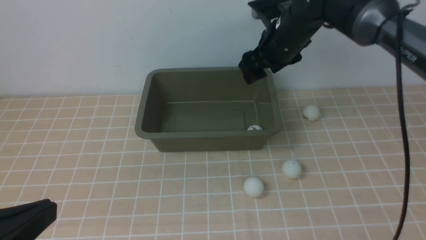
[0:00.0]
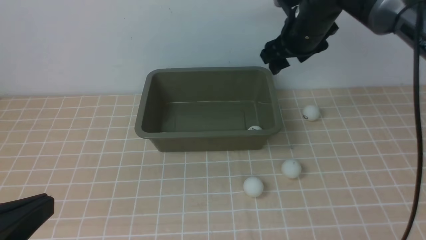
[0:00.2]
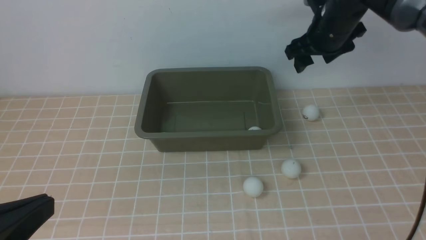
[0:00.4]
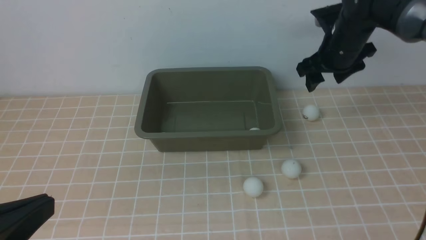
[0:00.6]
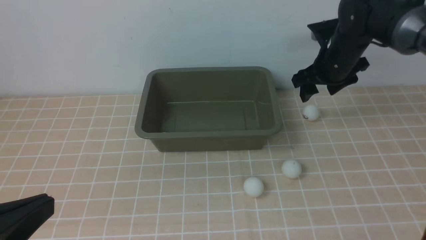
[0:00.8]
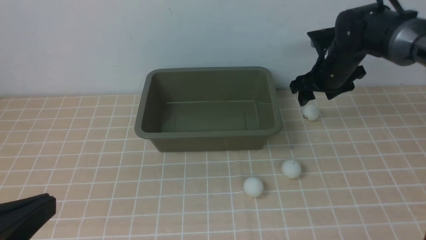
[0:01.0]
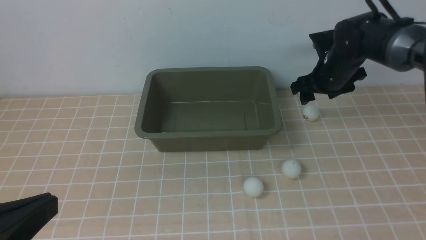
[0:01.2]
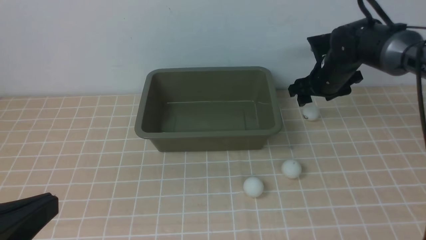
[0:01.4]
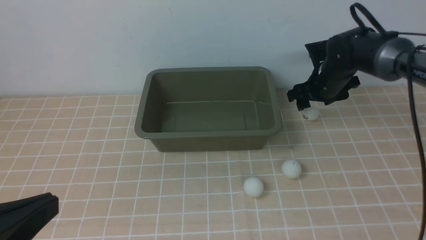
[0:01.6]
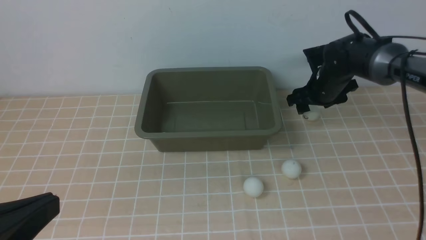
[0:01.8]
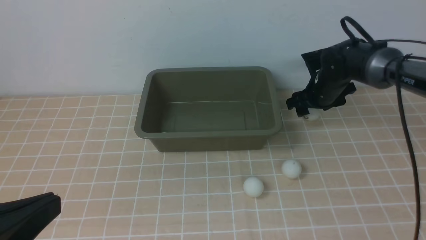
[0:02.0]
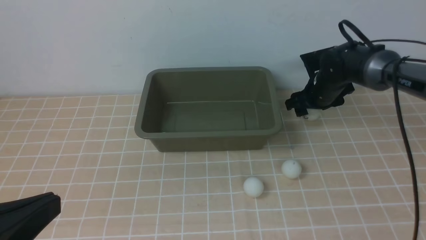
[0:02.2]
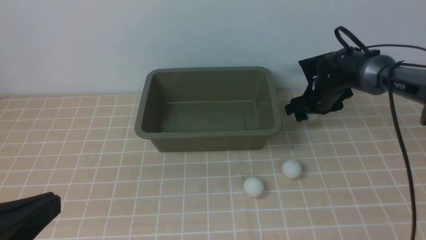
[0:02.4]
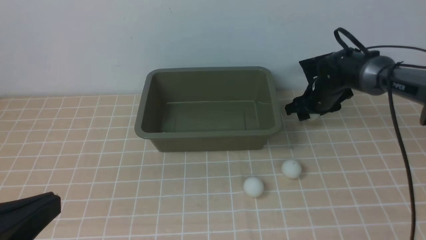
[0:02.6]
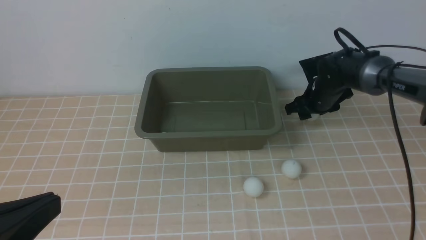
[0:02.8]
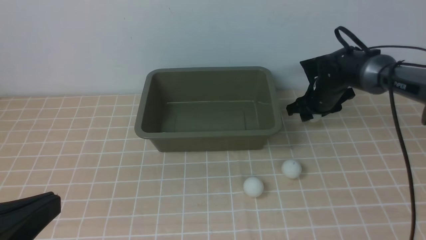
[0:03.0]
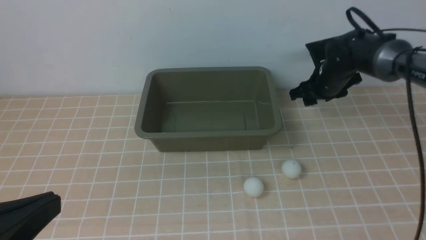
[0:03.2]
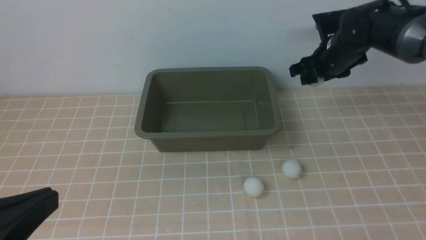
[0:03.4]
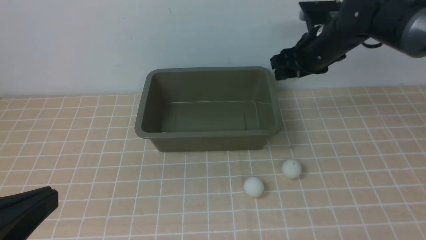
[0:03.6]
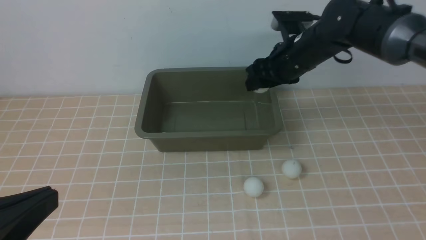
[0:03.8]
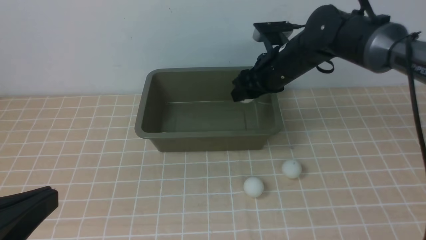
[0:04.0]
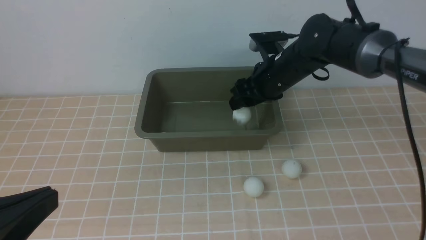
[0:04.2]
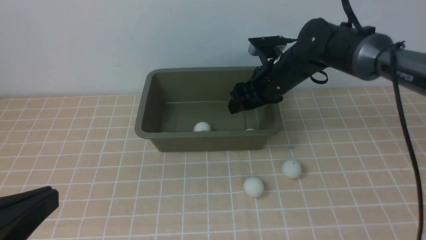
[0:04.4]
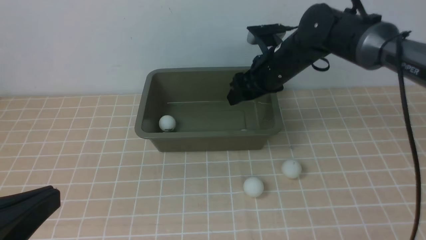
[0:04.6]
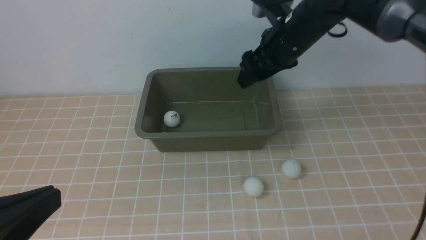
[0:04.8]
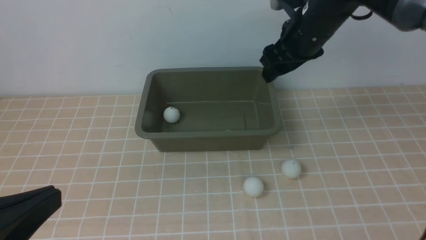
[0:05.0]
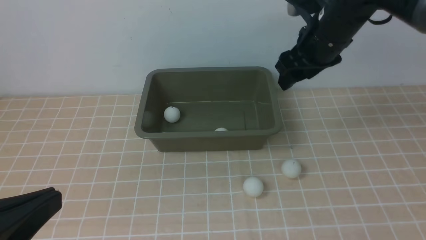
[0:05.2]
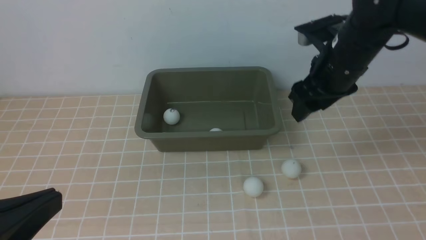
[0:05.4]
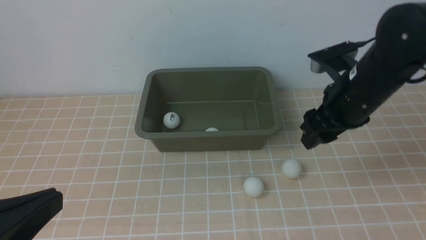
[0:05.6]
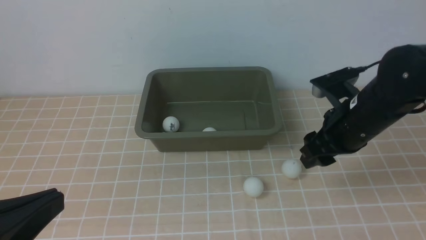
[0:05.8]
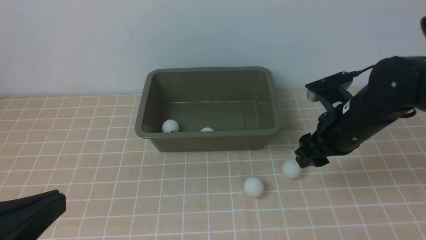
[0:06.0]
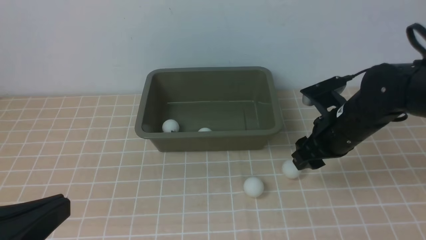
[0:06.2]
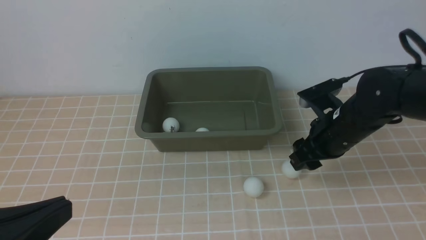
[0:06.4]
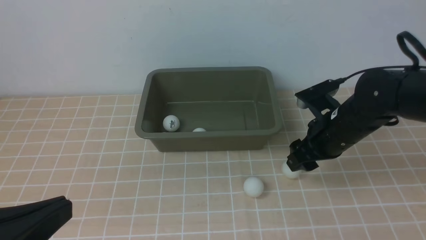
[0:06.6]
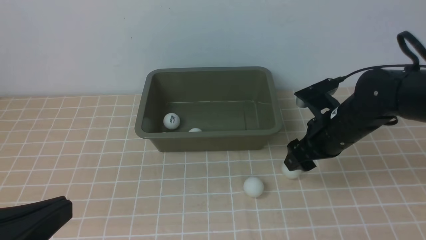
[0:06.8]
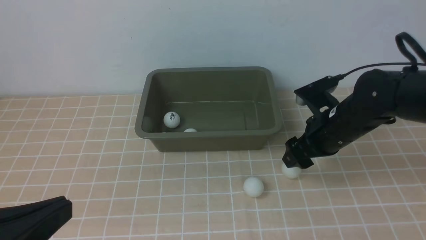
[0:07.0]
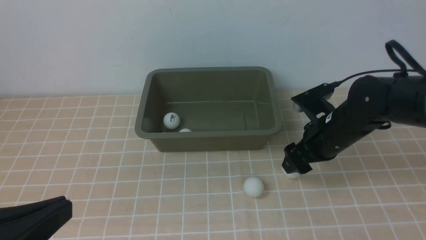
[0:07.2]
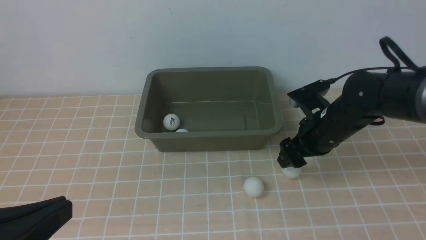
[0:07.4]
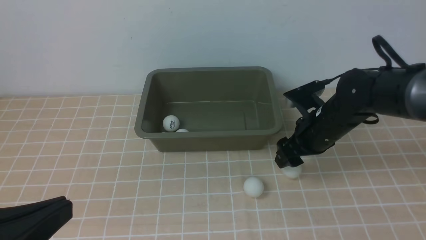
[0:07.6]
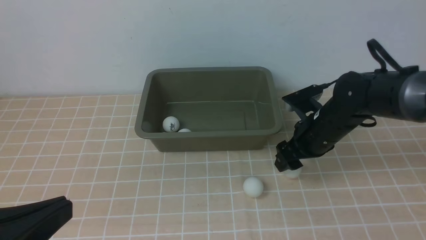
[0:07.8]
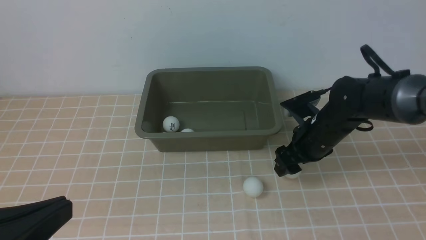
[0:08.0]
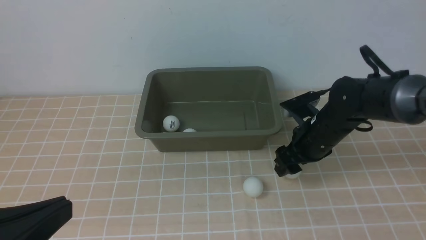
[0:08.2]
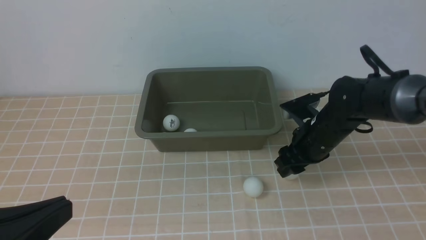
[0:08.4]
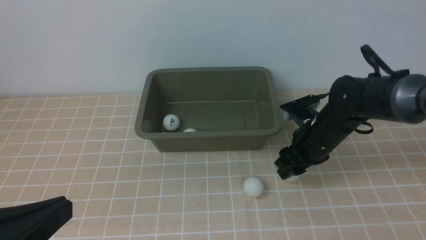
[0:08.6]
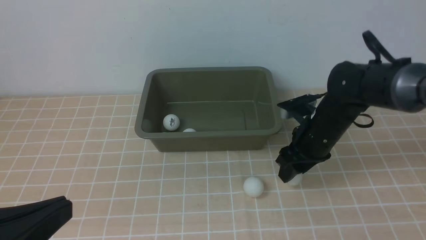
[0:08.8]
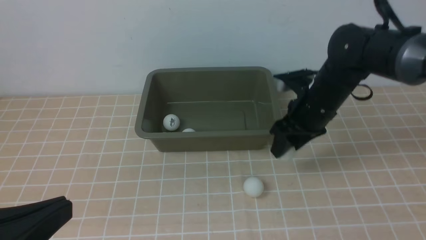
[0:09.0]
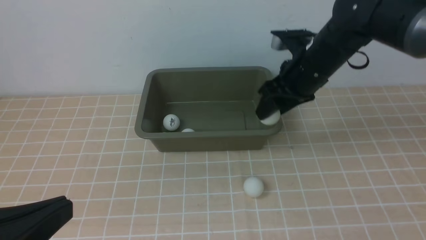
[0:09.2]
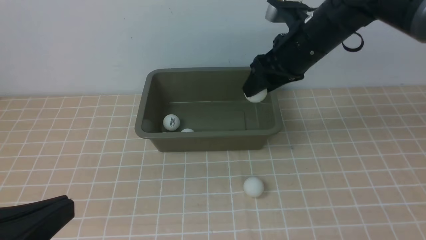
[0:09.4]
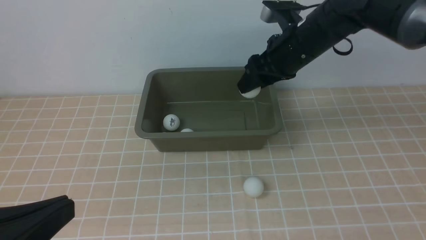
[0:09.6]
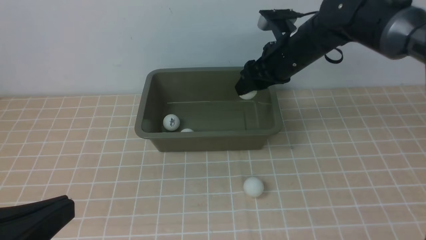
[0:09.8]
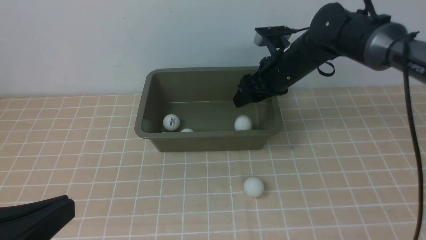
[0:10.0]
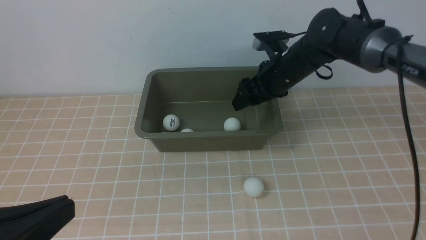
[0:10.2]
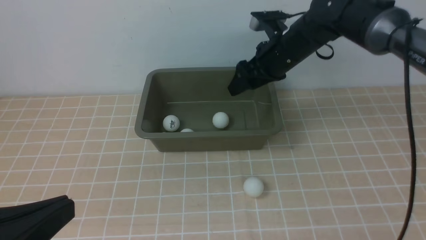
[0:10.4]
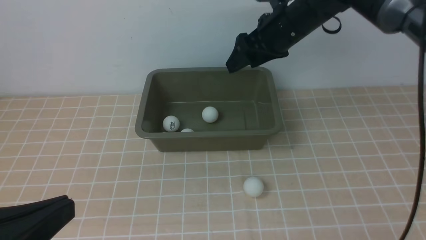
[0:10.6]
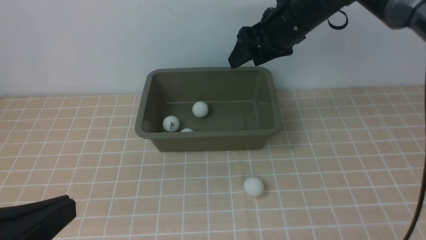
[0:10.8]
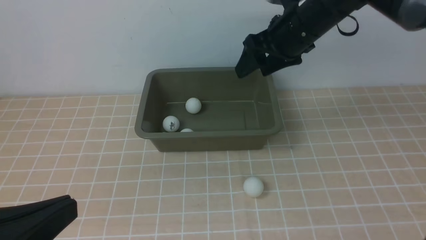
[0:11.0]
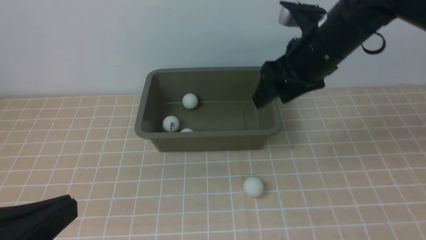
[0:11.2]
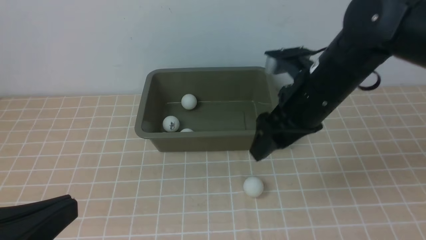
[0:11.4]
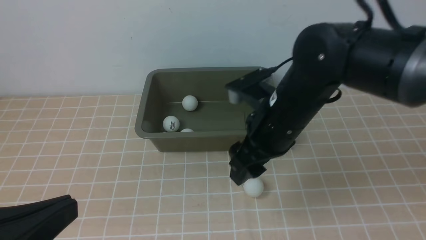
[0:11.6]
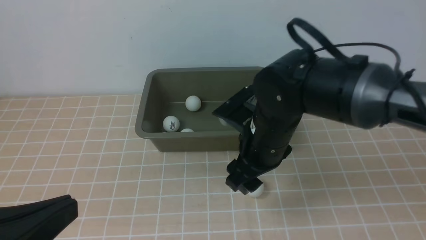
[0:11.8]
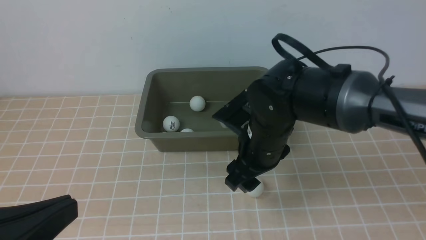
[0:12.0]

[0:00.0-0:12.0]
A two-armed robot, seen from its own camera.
Step, 0.4 to 3.0 s: use the right arm to clamp the table tennis ball closest to it.
Step, 3.2 to 4.8 s: use the right arm to put the table tennis ball into the box.
Step, 5.0 to 8.8 s: use the right arm to clamp the table tennis ball closest to it.
Step, 9.0 to 10.4 s: use the right arm to put the table tennis ball into the box.
0.0 to 1.6 s: The right gripper moves downward and to the right, roughly 15 cm.
1.6 to 3.0 s: The grippers move only a little.
3.0 to 4.4 s: The right gripper goes approximately 15 cm to the left and upward.
4.4 to 6.0 s: The right gripper shifts roughly 15 cm backward and to the right.
6.0 to 7.6 s: The right gripper moves about 5 cm.
7.6 to 9.0 s: The right gripper is displaced upward by about 5 cm.
9.0 to 10.4 s: The right gripper heads forward, covering some 5 cm.
10.4 to 12.0 s: The right gripper shifts about 15 cm backward.

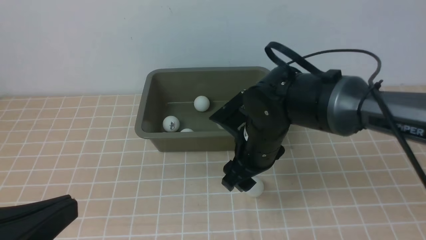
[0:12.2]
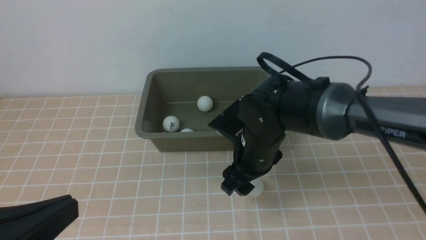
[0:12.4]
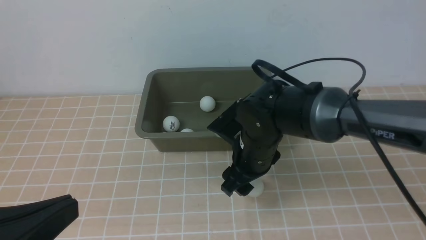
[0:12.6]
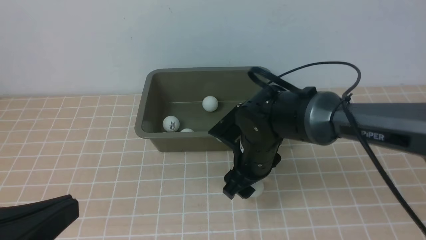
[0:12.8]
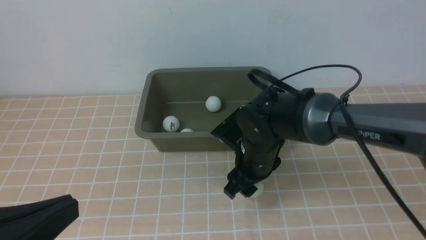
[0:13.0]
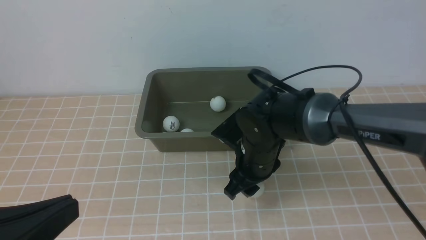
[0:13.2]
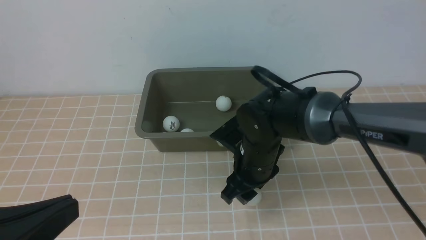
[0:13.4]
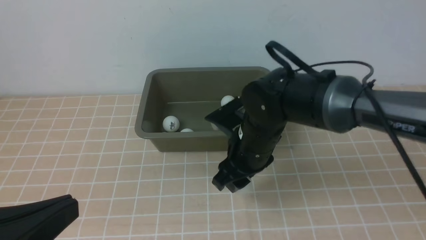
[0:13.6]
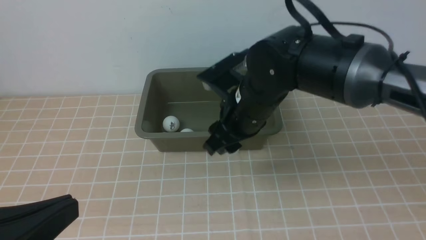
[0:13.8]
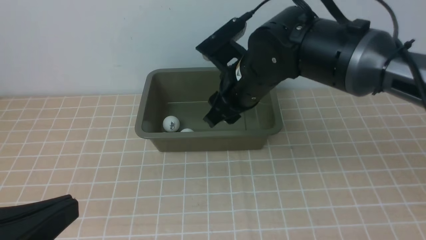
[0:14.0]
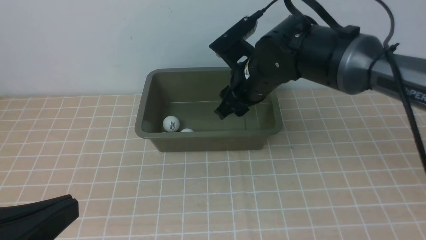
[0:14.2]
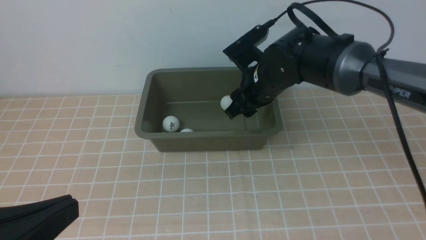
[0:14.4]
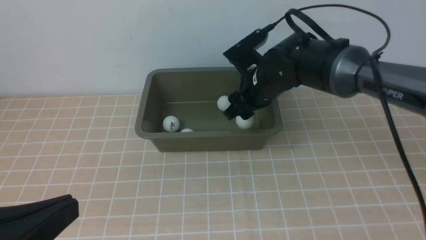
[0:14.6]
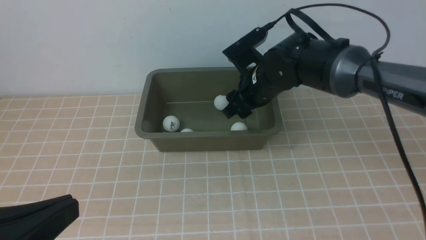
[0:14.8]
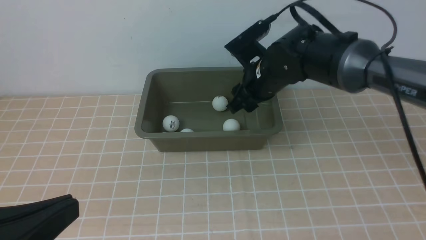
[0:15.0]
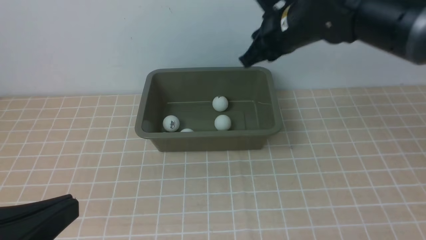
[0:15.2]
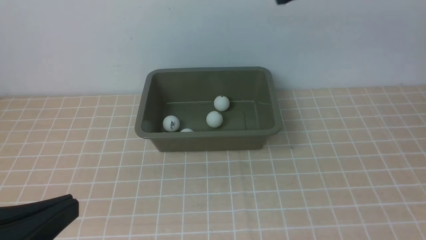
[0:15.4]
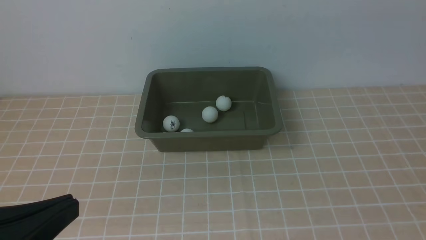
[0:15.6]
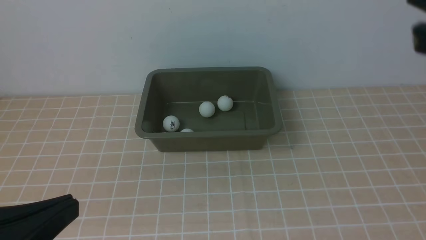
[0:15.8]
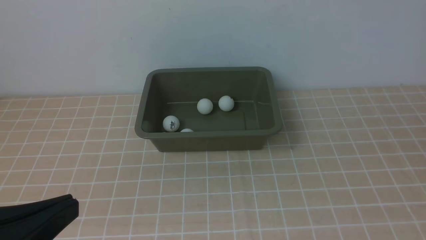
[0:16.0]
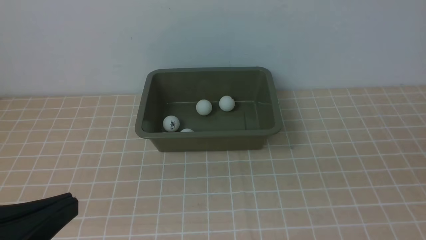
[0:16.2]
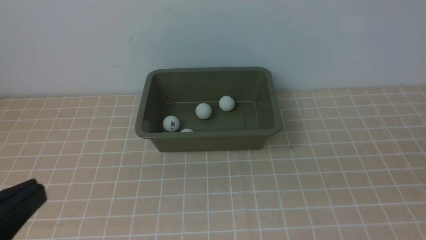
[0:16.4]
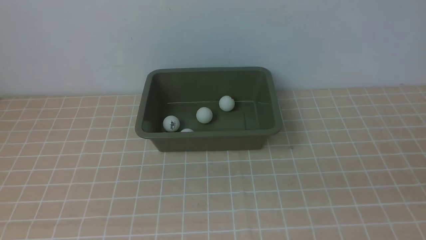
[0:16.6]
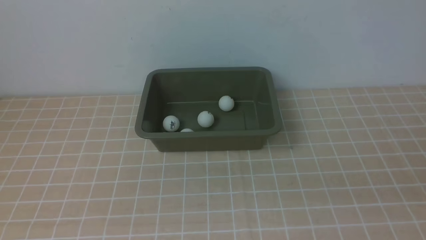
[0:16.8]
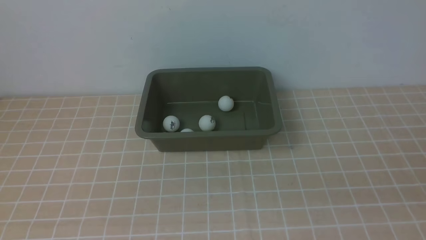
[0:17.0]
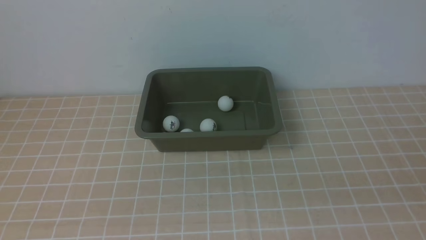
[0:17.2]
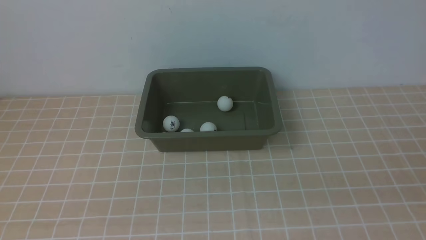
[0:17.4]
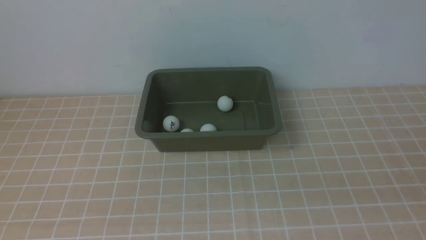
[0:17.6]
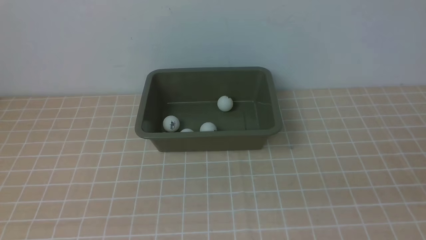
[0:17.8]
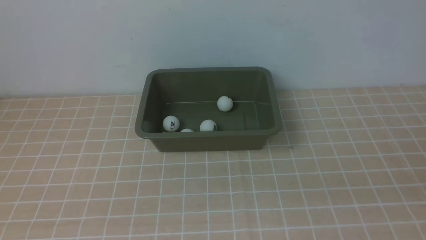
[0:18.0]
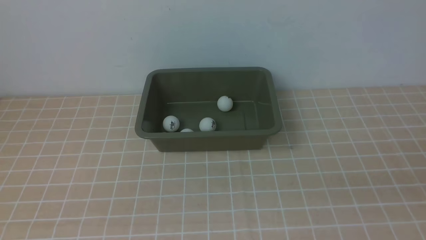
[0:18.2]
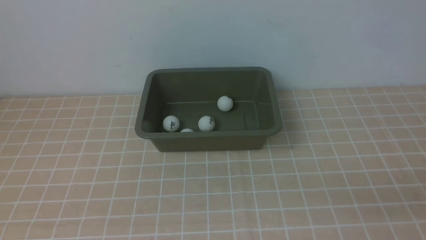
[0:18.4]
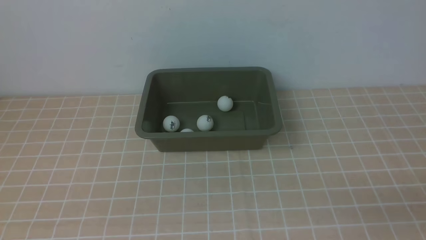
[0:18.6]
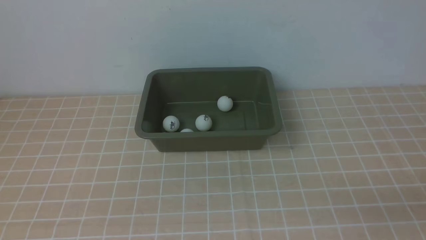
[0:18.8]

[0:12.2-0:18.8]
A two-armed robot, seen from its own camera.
Step, 13.8 to 15.6 s: use the right arm to put the table tennis ball into the box.
12.2 to 13.8 s: The right gripper moves upward, approximately 5 cm.
13.8 to 15.4 s: The right gripper is displaced upward and to the right by about 20 cm, and closes up.
15.4 to 17.2 s: The left gripper moves backward, some 5 cm. The right gripper heads backward, downward and to the right, covering some 30 cm.
